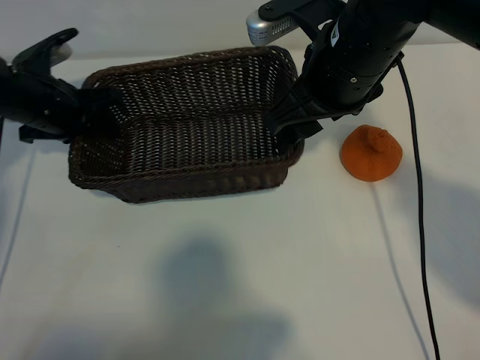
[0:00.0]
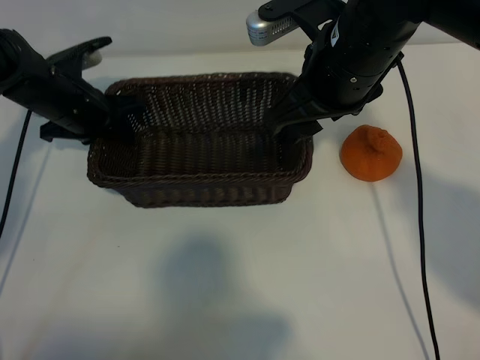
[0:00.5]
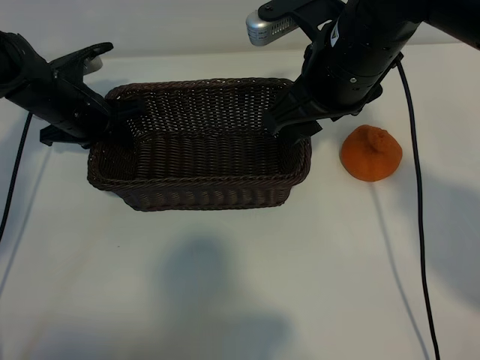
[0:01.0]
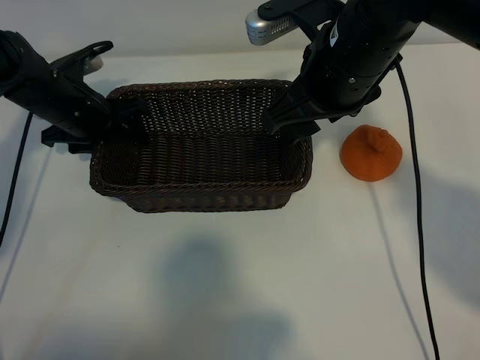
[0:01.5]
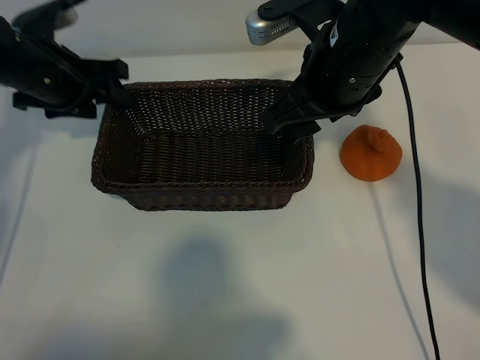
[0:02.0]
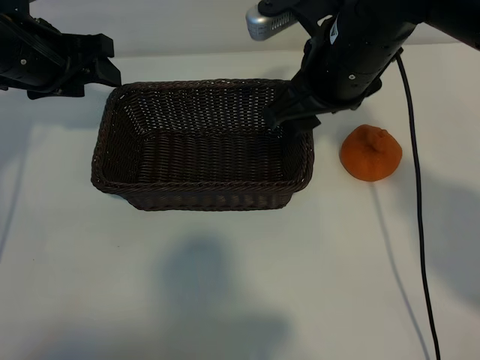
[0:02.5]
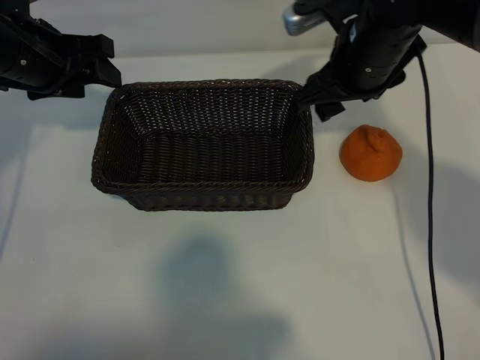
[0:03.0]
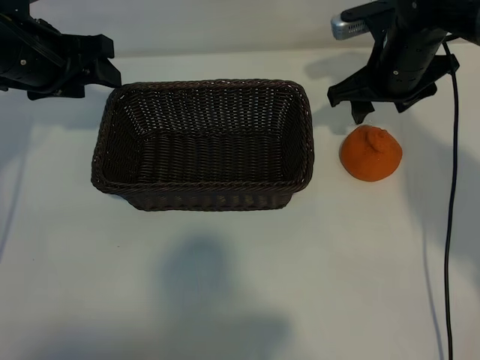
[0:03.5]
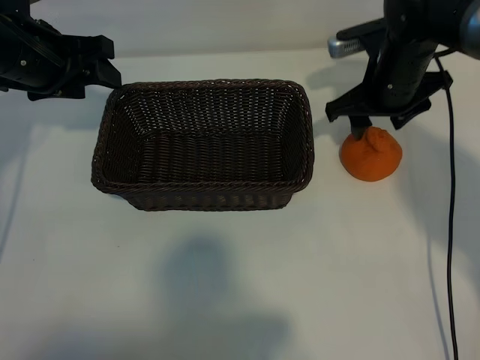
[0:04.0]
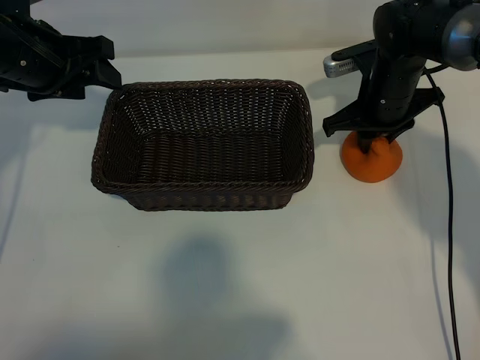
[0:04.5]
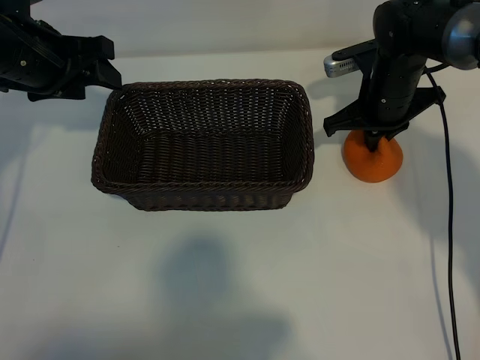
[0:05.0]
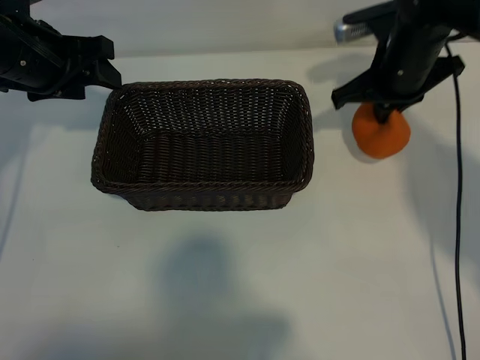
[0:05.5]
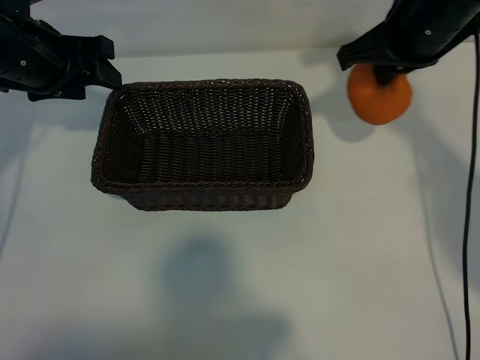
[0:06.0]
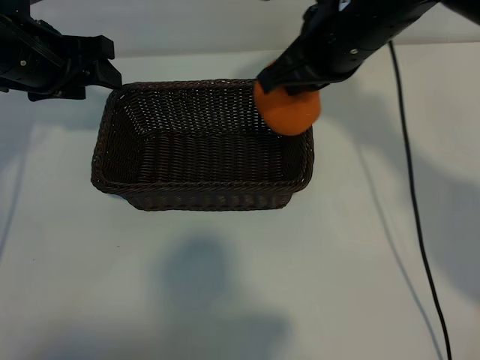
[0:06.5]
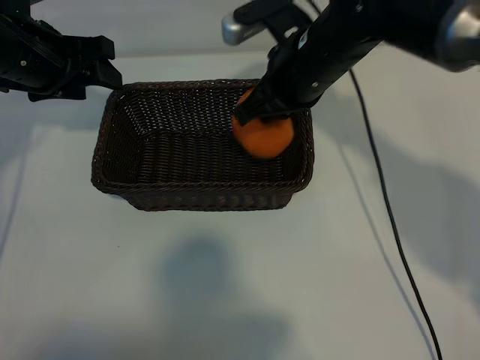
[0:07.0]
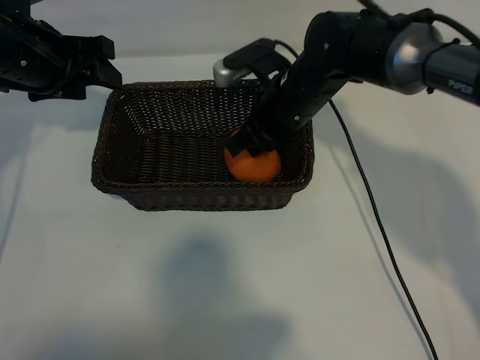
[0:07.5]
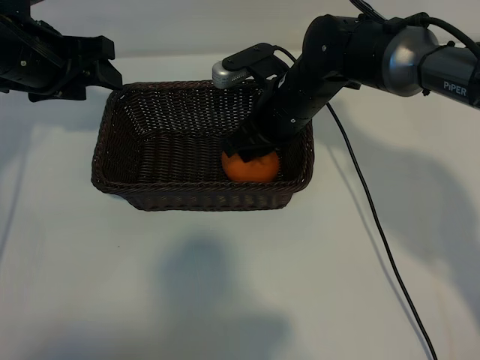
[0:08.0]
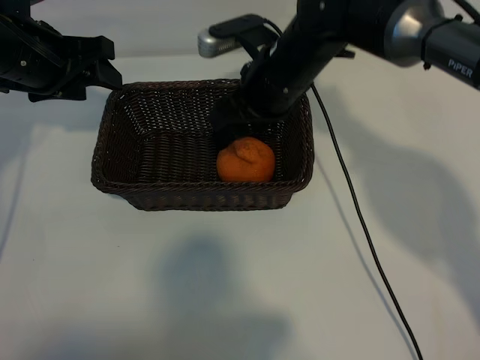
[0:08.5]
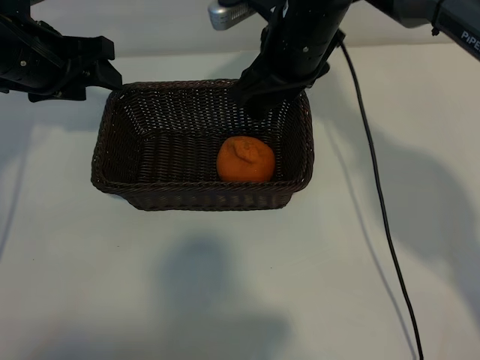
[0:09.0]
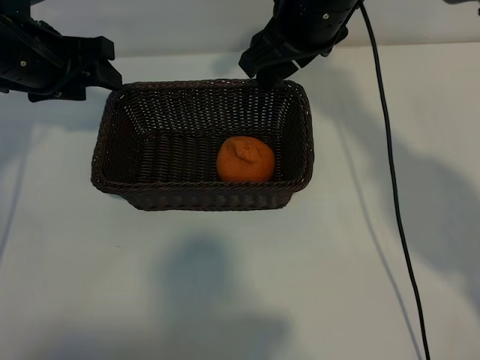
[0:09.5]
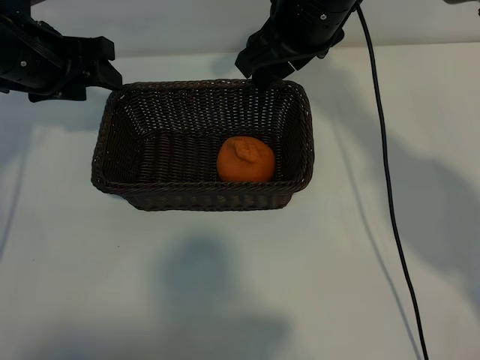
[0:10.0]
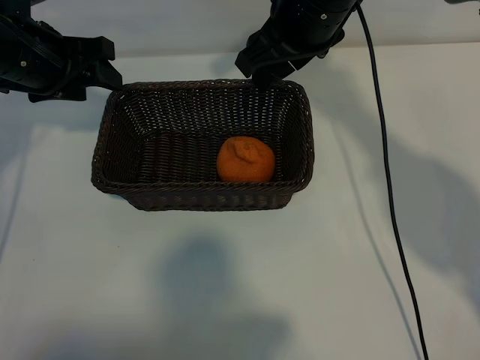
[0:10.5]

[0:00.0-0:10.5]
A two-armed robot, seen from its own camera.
Task of the whole recording: pick up the orange and put it into the basket.
Step, 0:01.5 to 0:04.5: Grasp the orange with right gripper.
Step, 0:05.0 to 0:08.0: Place the orange in the basket with right gripper.

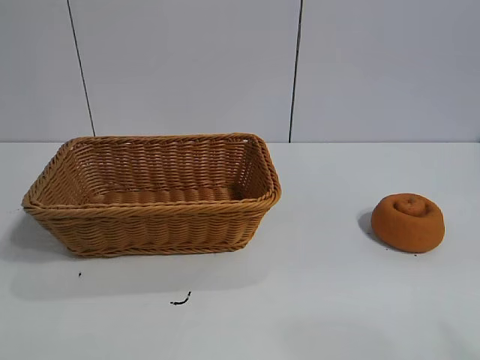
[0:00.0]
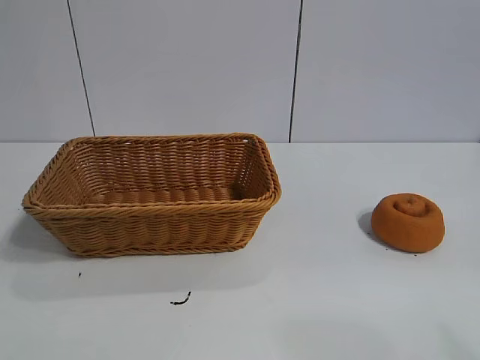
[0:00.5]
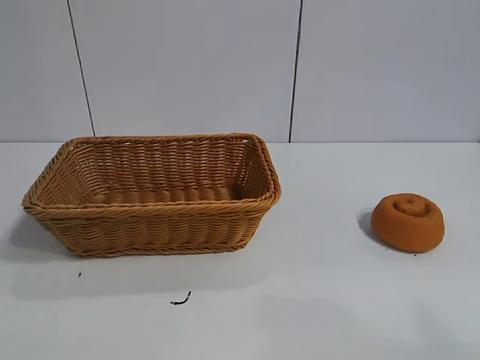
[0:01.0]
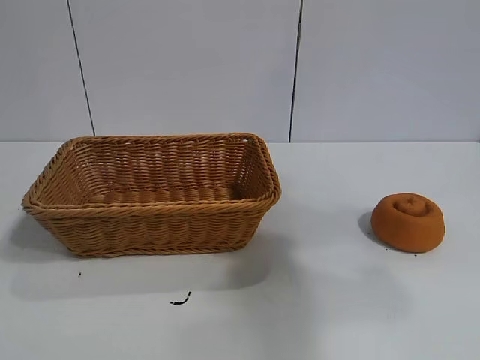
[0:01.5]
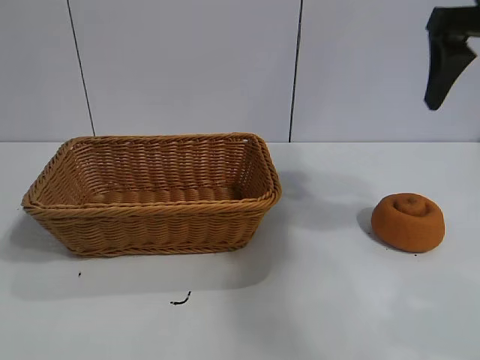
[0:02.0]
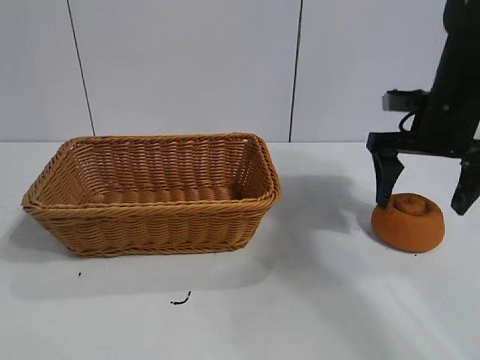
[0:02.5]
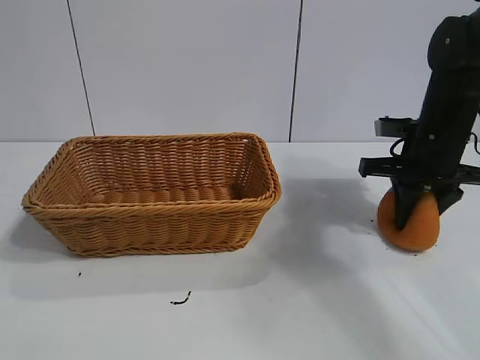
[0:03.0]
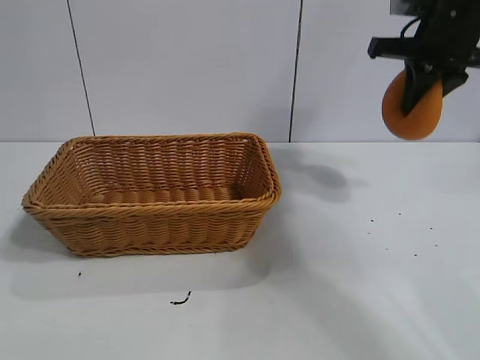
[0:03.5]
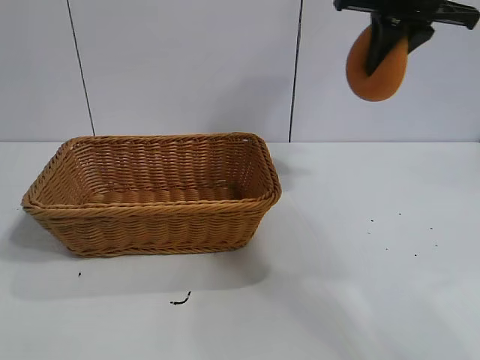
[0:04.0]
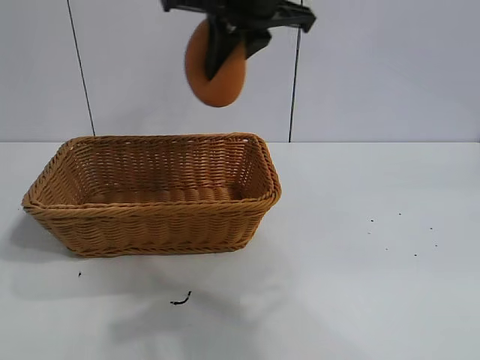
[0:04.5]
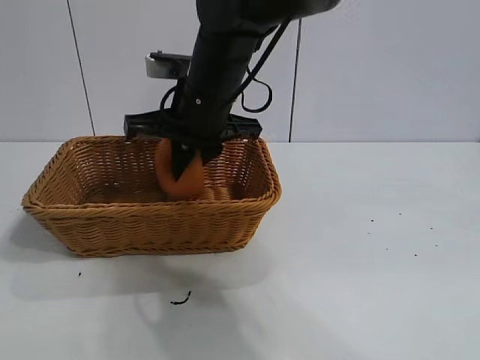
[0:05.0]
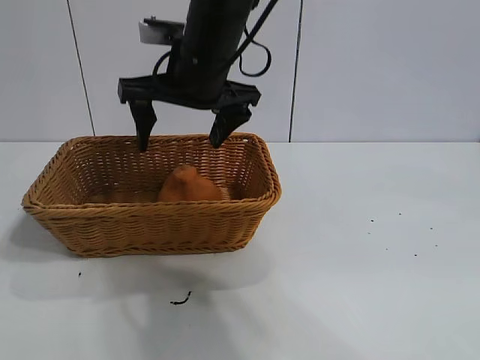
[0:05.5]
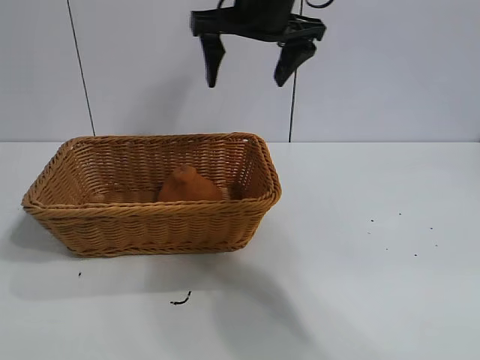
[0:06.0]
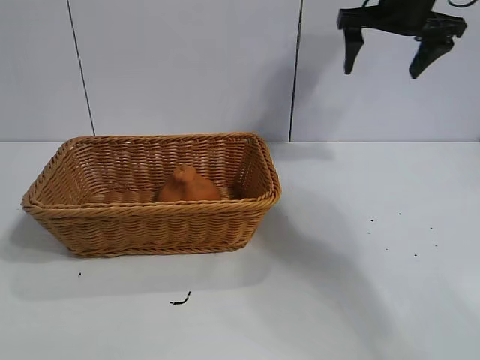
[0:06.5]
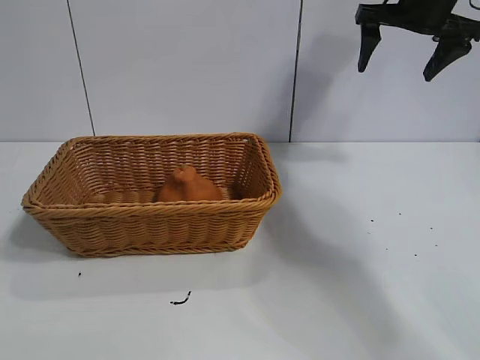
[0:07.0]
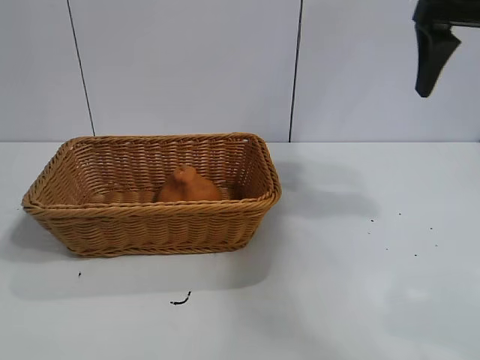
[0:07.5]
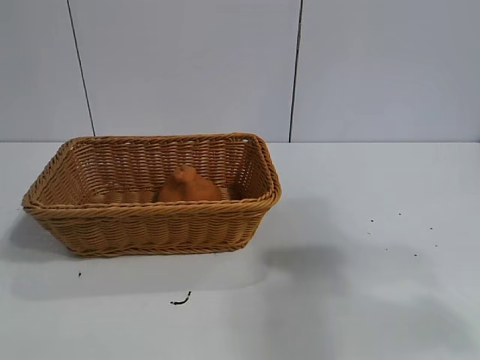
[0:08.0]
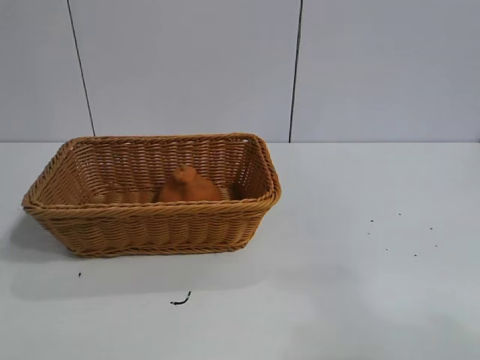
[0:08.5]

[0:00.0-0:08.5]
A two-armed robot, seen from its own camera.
Task of the whole recording: pick up the orange and put it into the basket.
Step, 0:01.0 to 0:02.5: Grasp the orange with right gripper.
Step, 0:03.5 to 0:05.5: Place the orange in the basket with right gripper.
